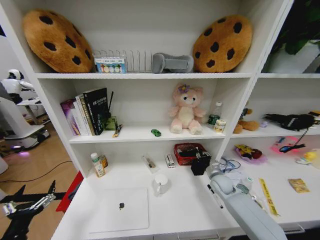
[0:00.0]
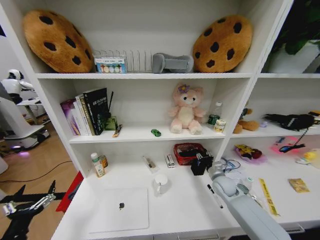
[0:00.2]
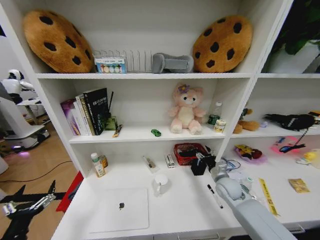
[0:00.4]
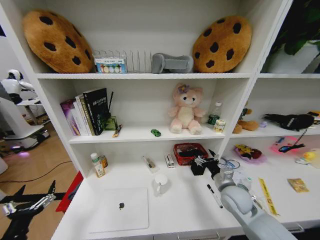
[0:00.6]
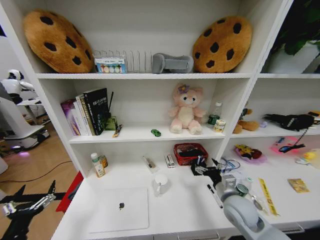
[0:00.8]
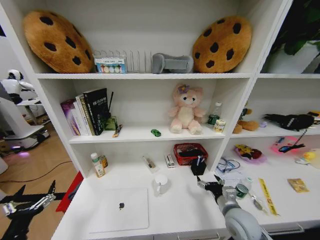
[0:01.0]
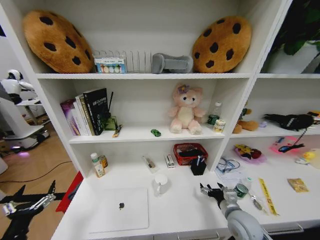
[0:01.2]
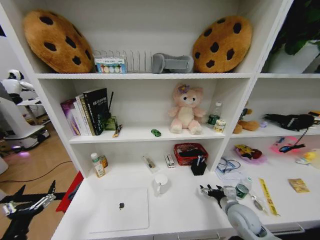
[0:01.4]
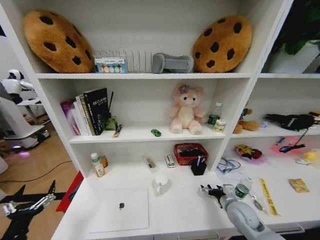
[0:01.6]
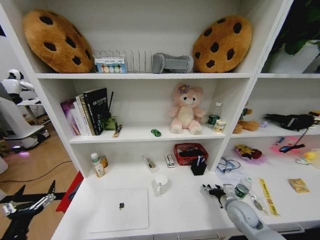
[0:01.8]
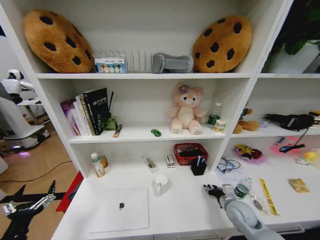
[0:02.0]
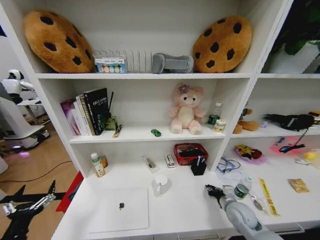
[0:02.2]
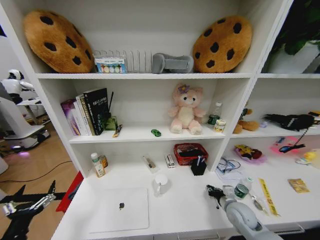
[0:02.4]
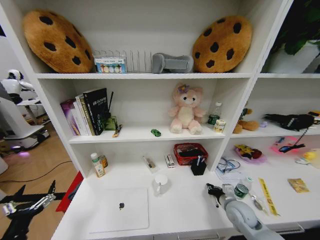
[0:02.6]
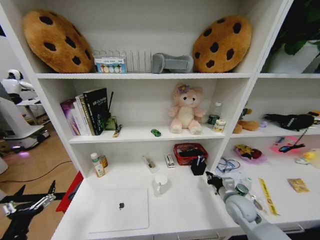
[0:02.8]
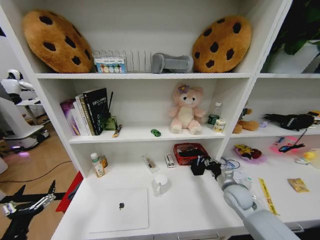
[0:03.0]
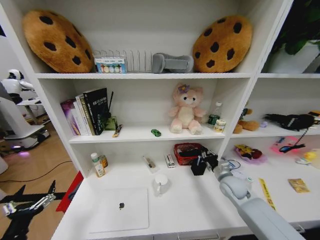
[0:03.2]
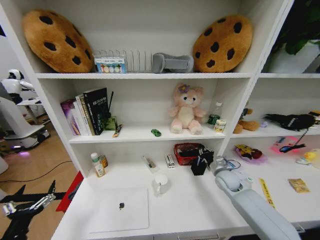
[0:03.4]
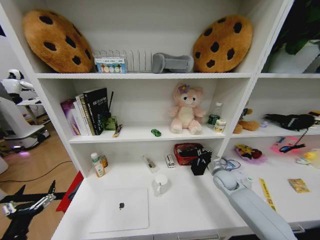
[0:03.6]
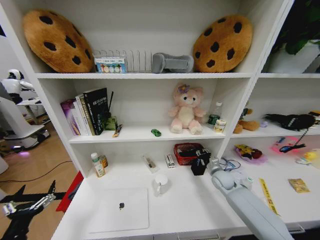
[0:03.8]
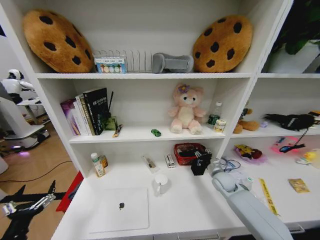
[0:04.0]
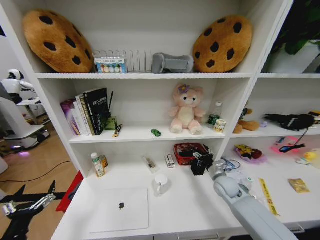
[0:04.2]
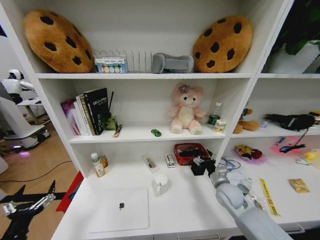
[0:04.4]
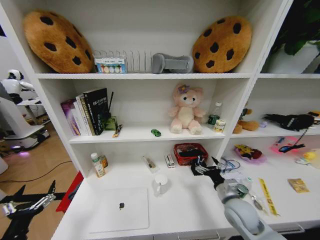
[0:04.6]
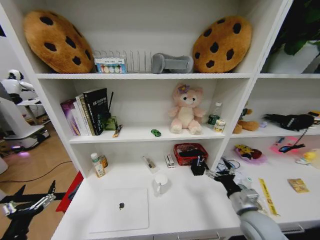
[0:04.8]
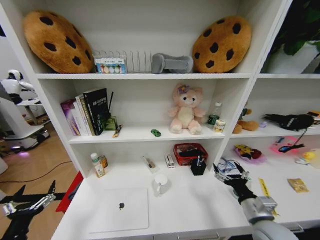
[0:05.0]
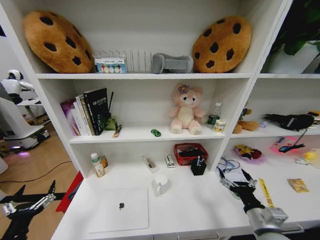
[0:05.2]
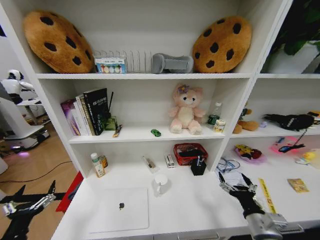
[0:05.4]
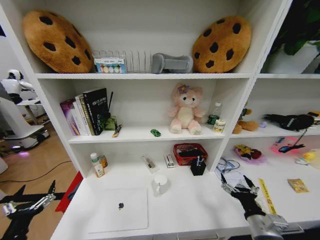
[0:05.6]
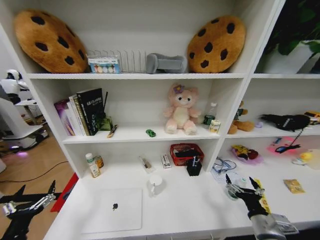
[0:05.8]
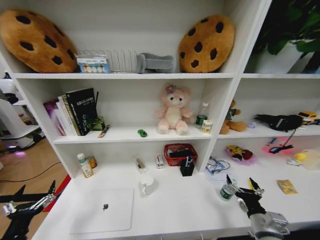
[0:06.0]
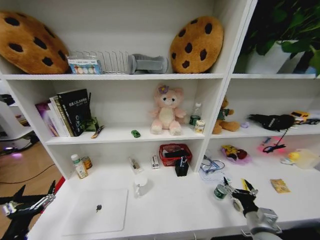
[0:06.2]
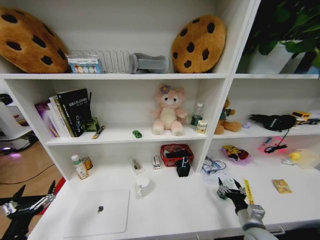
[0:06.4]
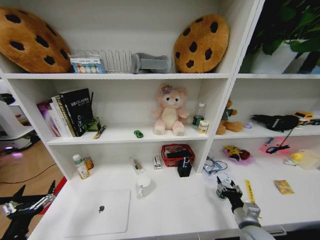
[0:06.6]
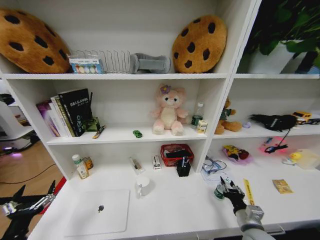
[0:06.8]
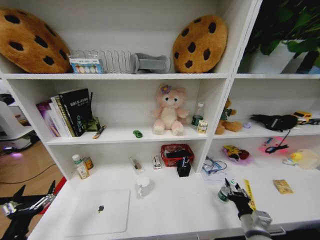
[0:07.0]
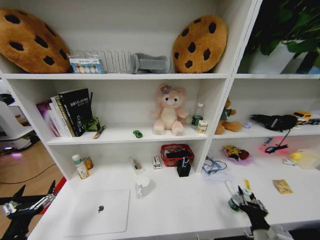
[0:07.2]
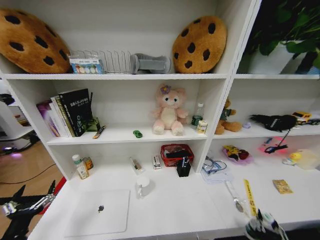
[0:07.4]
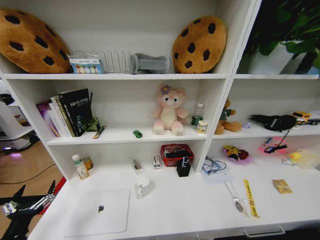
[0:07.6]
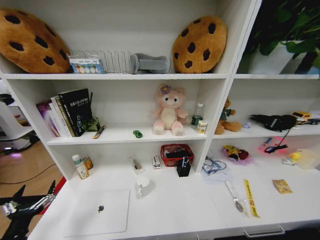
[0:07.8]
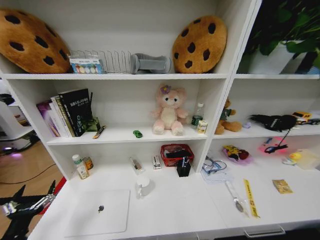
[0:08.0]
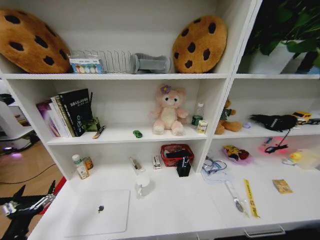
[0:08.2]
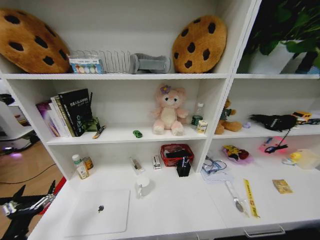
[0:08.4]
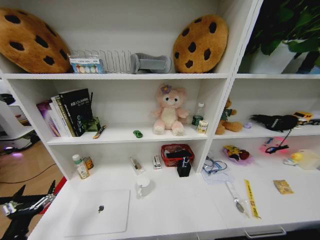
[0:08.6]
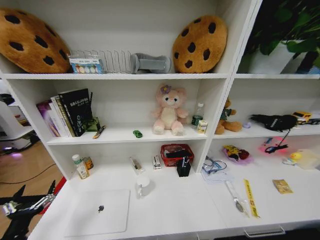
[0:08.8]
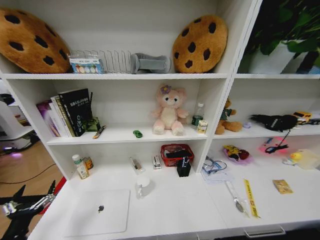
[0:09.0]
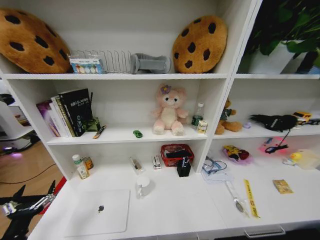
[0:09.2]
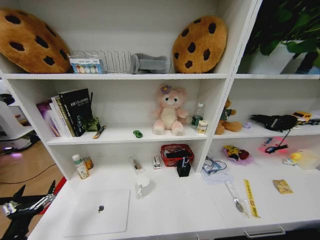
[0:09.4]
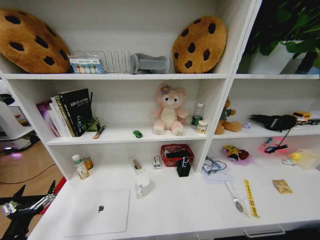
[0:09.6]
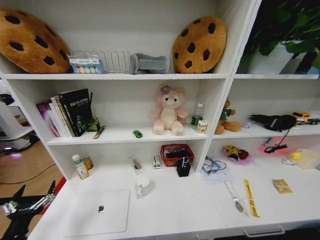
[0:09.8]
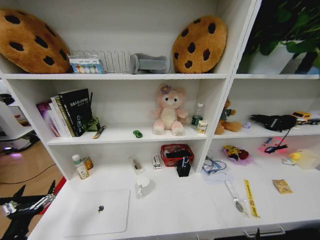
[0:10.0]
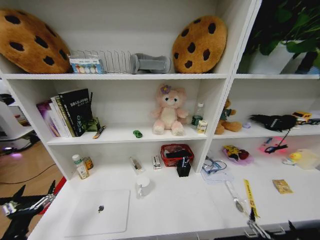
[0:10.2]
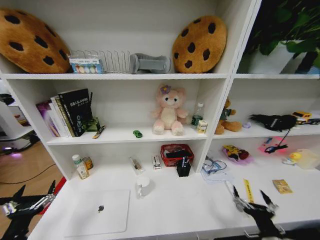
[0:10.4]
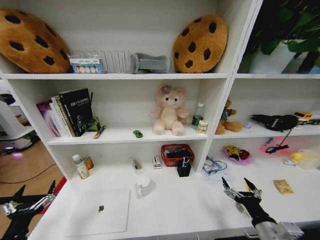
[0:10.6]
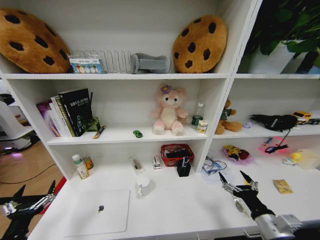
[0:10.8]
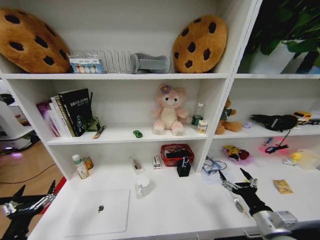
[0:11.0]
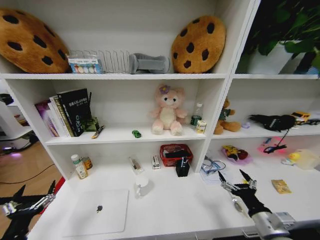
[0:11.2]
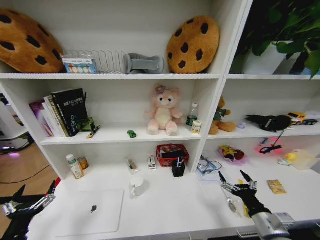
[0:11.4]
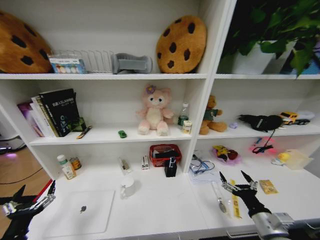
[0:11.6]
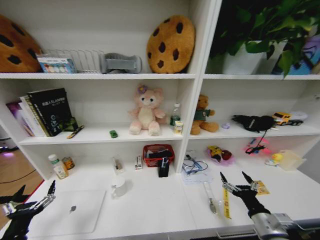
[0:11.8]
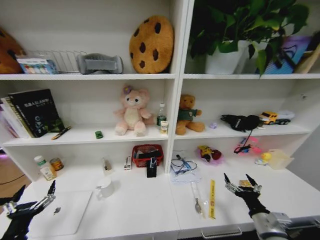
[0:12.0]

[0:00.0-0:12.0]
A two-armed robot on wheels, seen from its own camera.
Task of the whole recording: Organize the objects on the table.
0:00.0 to 0:01.6: The right gripper goes approximately 15 cm backward, and opens its fingers.
0:01.6 to 0:03.0: The right gripper moves some 5 cm, and closes its fingers.
0:03.0 to 0:04.4: The right gripper goes forward and returns, roughly 10 cm each way, and opens its fingers.
0:04.4 to 0:06.0: The right gripper is displaced backward by roughly 15 cm.
0:06.0 to 0:07.6: The right gripper travels backward and to the left by roughly 20 cm, and closes its fingers.
0:07.6 to 0:09.0: The right gripper heads downward, covering about 25 cm, and opens up.
0:09.0 to 0:10.4: The right gripper shifts approximately 30 cm upward.
0:10.4 to 0:12.0: The right gripper moves forward, some 10 cm.

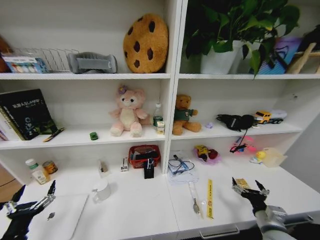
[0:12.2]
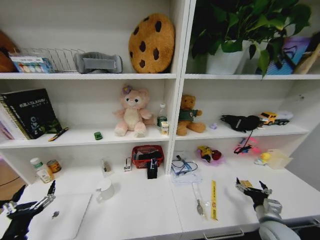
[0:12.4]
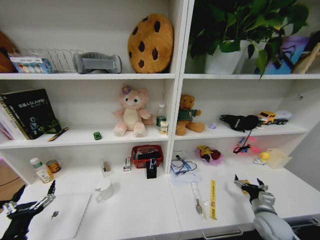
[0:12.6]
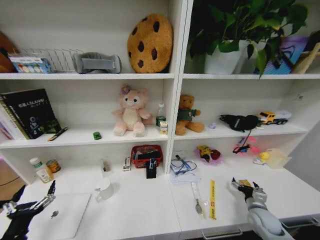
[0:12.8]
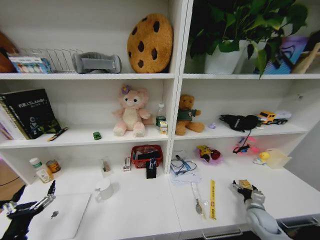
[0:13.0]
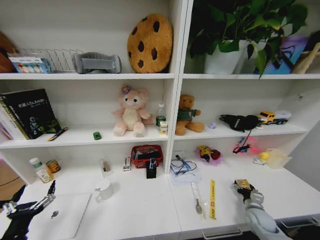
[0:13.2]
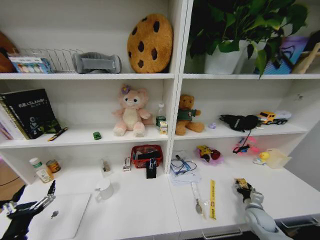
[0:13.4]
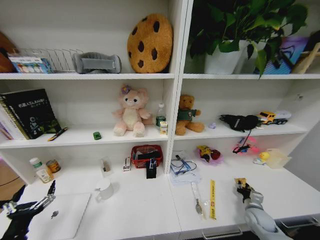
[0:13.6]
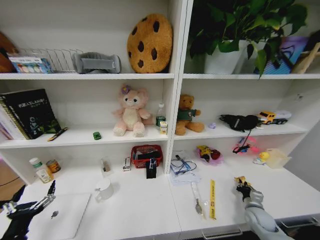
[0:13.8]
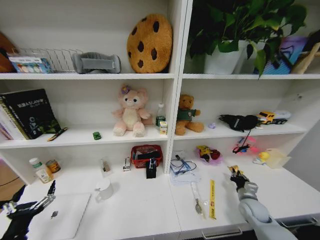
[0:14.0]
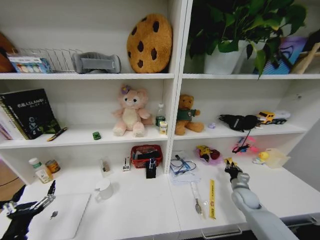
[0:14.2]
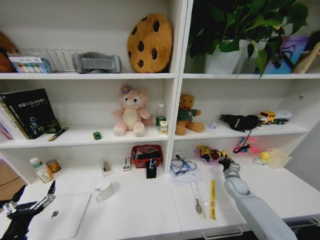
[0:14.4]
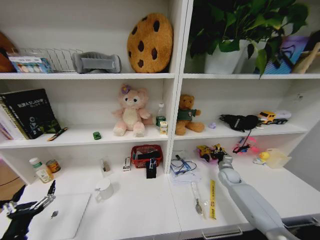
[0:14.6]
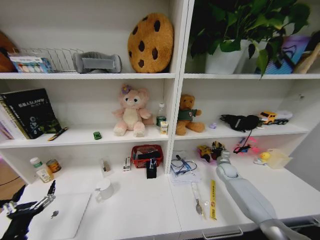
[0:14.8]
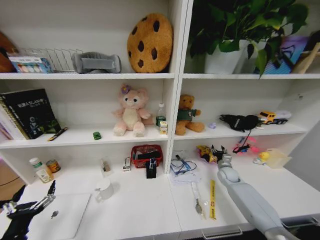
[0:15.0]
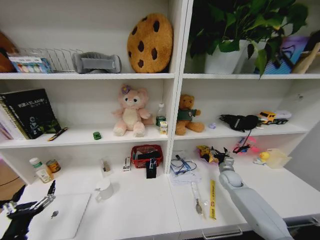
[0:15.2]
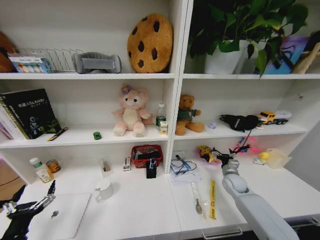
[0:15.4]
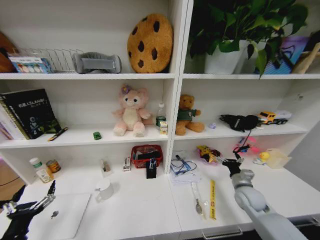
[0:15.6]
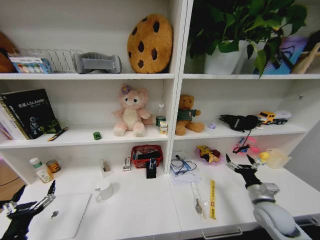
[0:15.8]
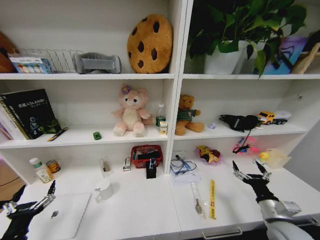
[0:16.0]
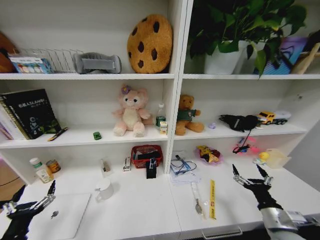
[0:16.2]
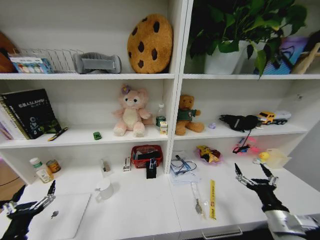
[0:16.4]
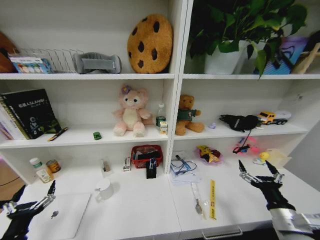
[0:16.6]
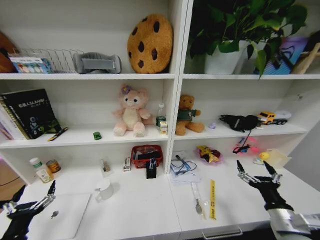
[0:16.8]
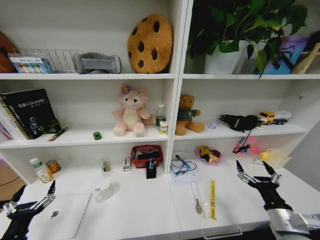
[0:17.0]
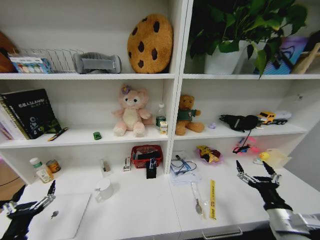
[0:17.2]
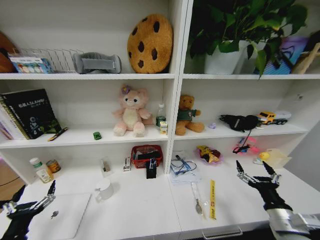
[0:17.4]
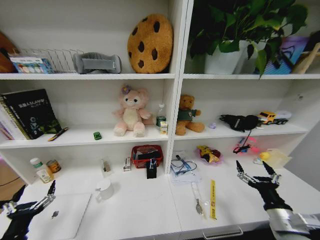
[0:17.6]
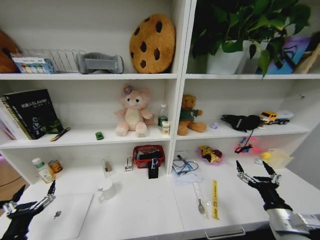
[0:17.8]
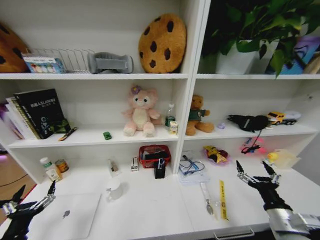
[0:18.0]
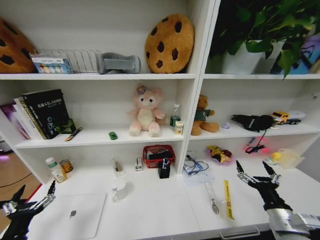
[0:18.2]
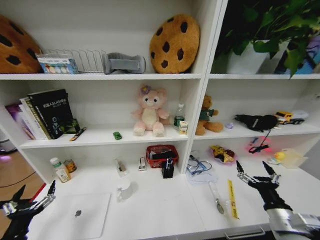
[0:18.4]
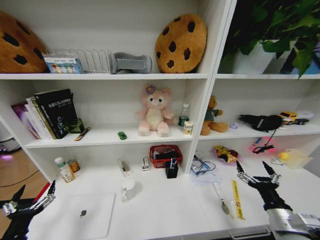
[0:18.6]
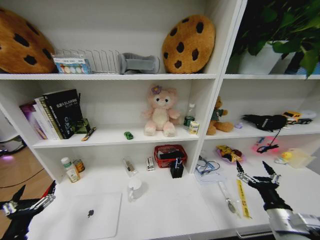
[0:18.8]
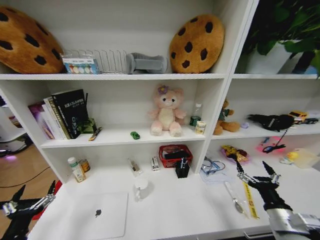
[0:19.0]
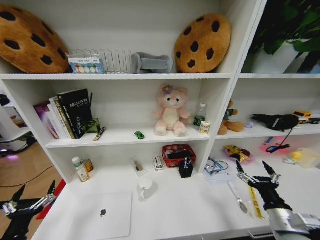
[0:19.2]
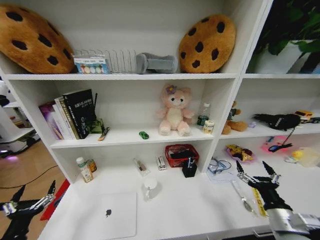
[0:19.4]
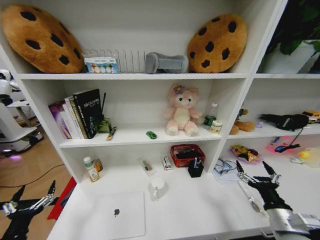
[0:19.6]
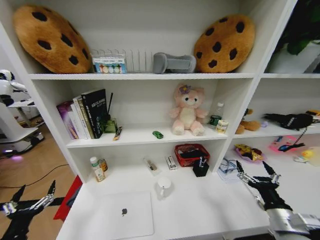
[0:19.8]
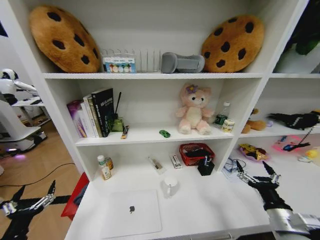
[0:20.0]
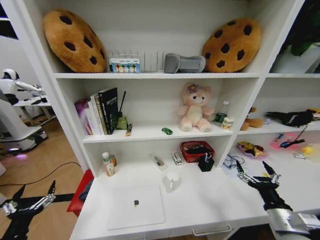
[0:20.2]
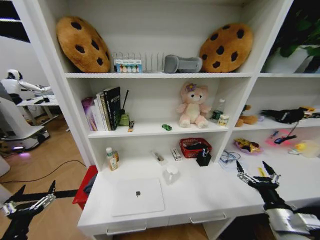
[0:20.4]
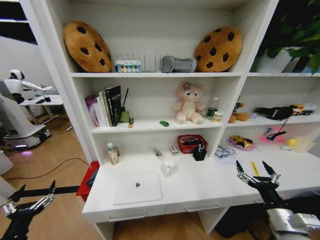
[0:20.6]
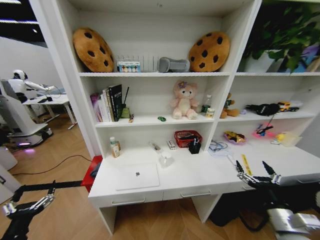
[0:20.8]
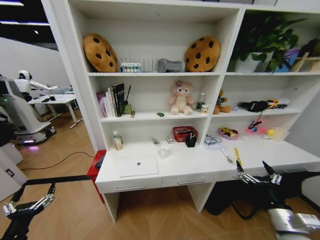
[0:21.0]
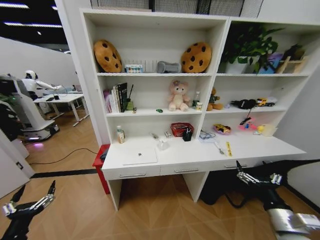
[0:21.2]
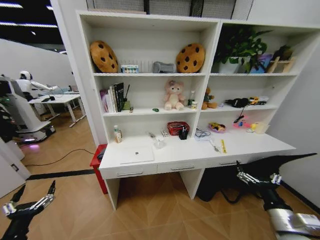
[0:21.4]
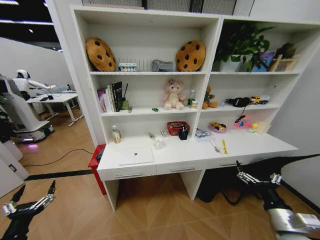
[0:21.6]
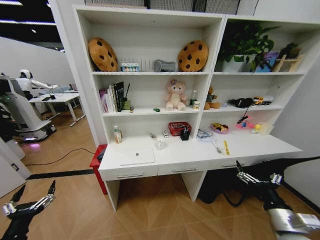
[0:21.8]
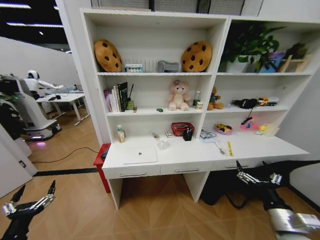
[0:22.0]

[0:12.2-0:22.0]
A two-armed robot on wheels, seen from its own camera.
Task of the whole recording: Organize the objects on the table.
0:12.2 to 0:13.6: The right gripper travels downward, forward and to the right by about 15 cm, and closes its fingers.
0:13.6 to 0:15.0: The right gripper travels forward by roughly 20 cm.
0:15.0 to 0:16.4: The right gripper is displaced backward by some 30 cm, and opens.
0:16.4 to 0:17.8: The grippers move only a little.
